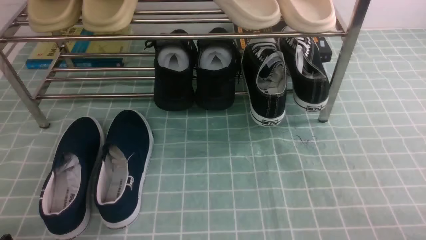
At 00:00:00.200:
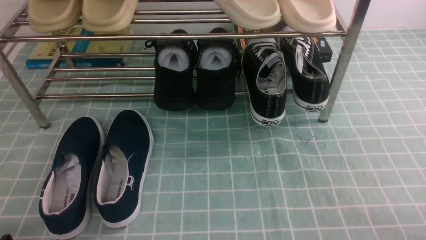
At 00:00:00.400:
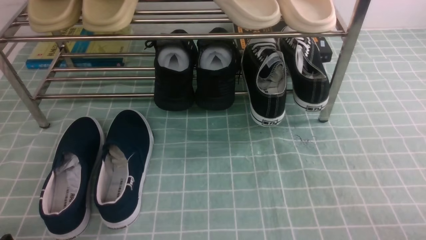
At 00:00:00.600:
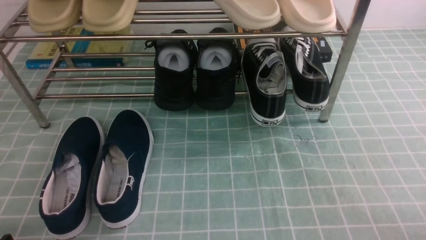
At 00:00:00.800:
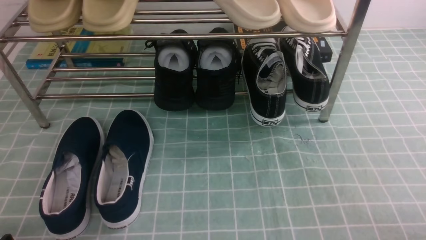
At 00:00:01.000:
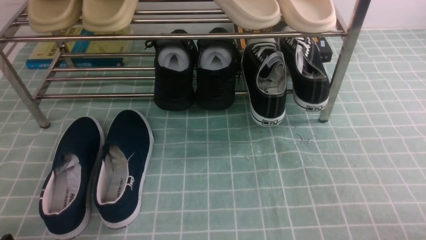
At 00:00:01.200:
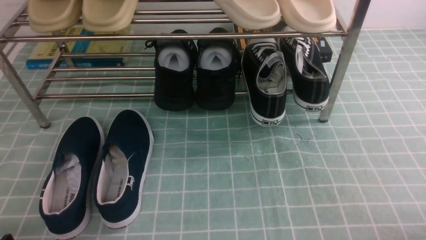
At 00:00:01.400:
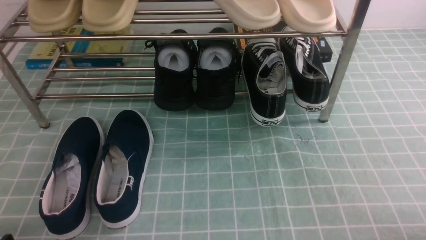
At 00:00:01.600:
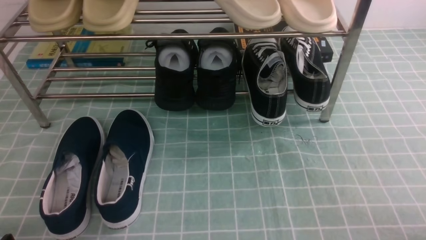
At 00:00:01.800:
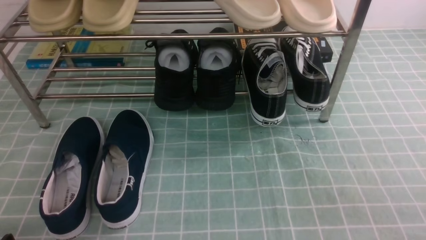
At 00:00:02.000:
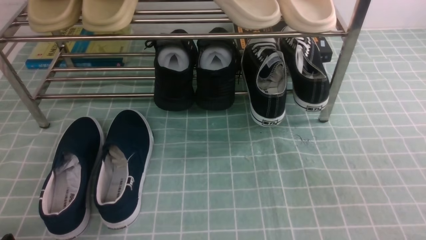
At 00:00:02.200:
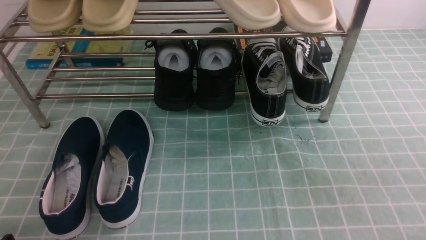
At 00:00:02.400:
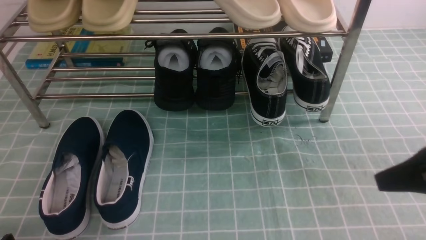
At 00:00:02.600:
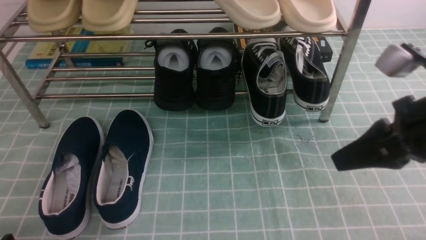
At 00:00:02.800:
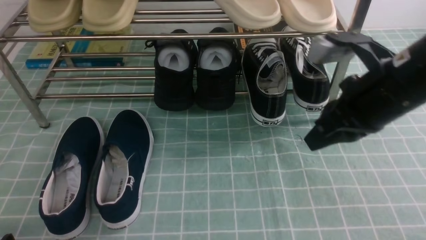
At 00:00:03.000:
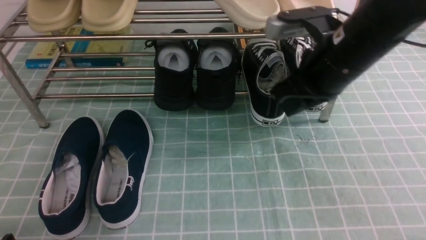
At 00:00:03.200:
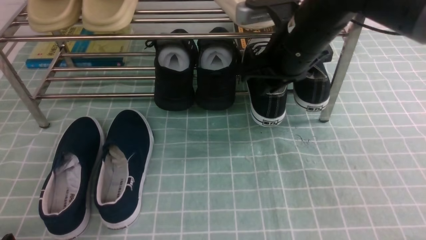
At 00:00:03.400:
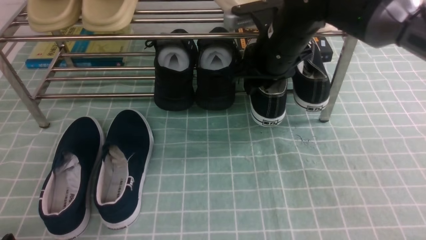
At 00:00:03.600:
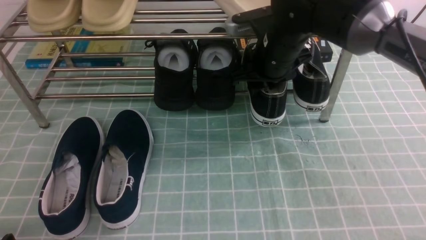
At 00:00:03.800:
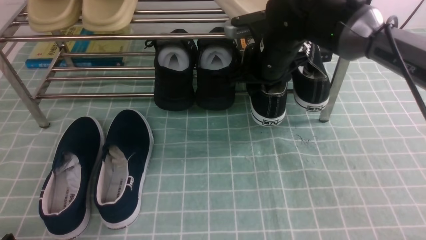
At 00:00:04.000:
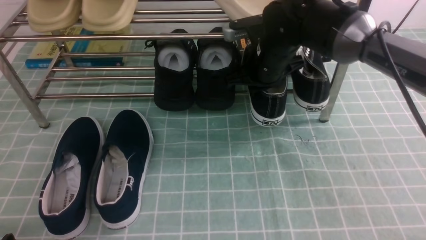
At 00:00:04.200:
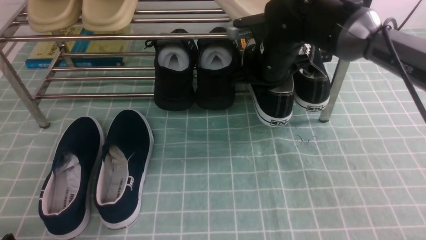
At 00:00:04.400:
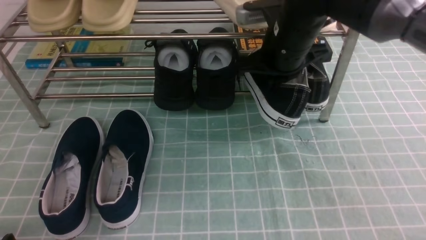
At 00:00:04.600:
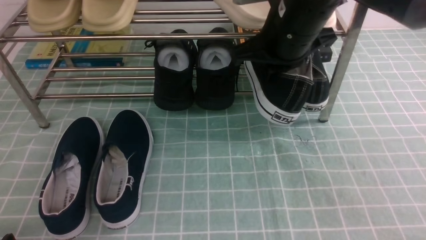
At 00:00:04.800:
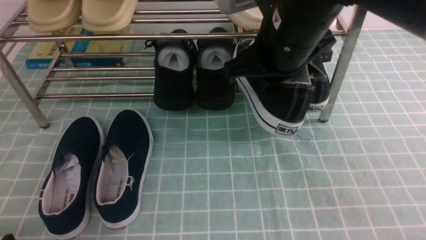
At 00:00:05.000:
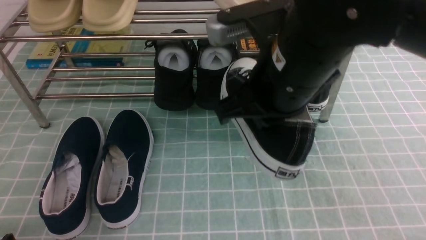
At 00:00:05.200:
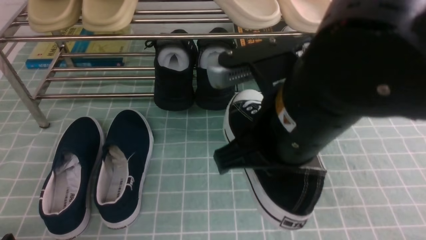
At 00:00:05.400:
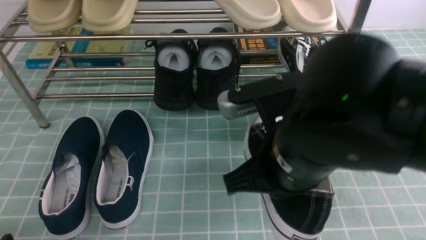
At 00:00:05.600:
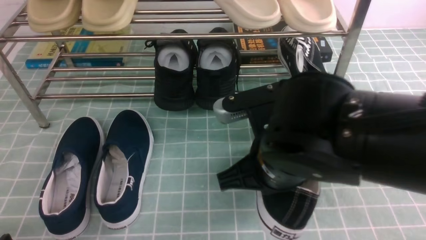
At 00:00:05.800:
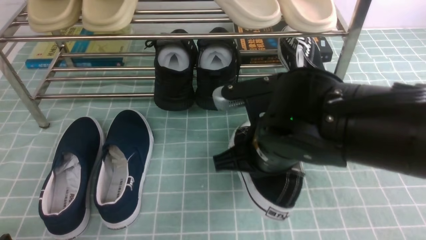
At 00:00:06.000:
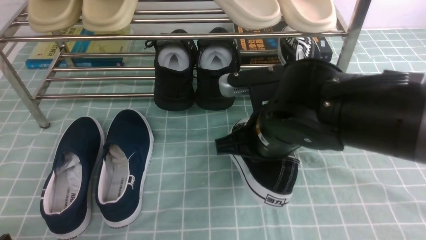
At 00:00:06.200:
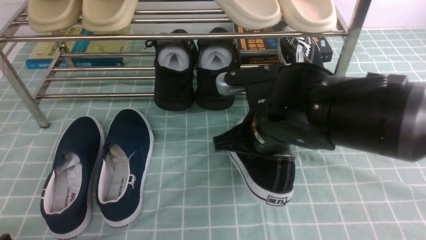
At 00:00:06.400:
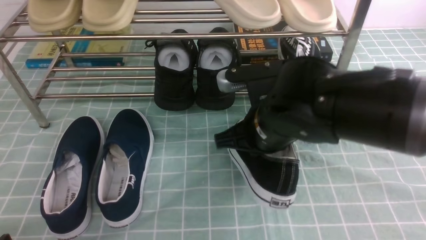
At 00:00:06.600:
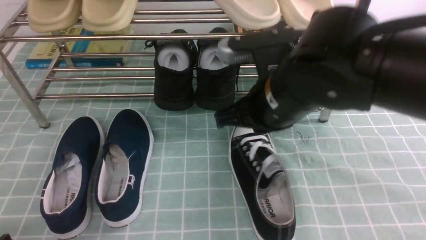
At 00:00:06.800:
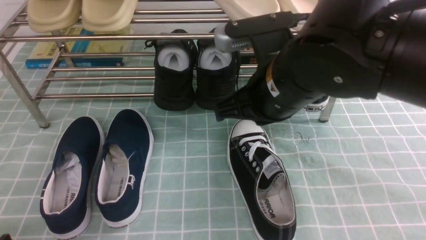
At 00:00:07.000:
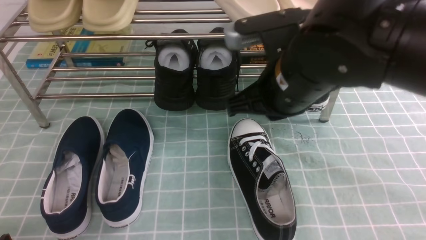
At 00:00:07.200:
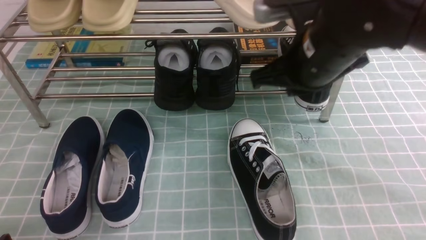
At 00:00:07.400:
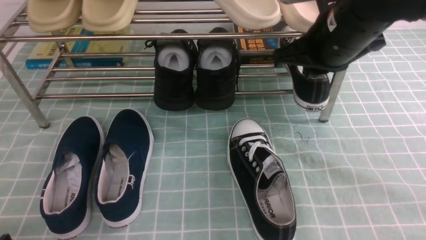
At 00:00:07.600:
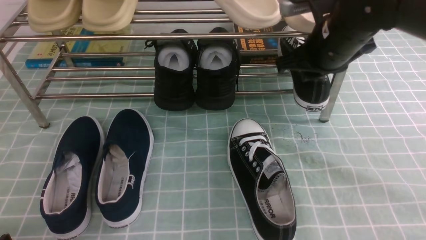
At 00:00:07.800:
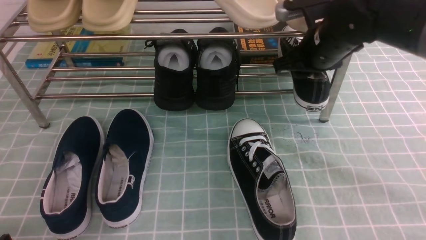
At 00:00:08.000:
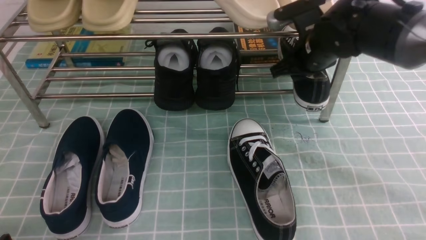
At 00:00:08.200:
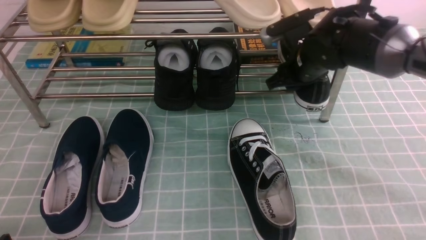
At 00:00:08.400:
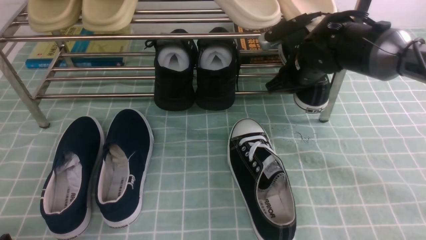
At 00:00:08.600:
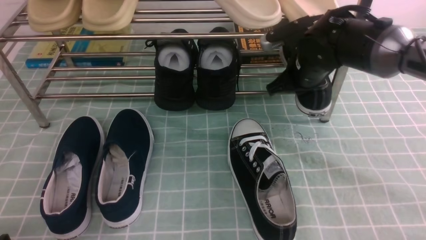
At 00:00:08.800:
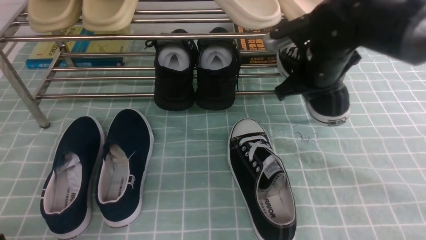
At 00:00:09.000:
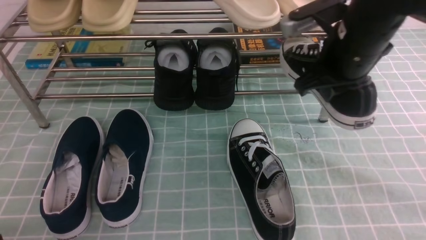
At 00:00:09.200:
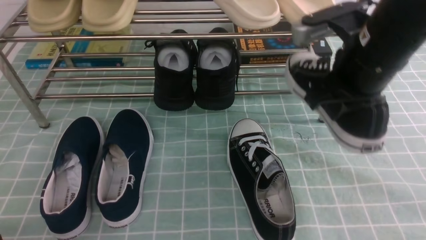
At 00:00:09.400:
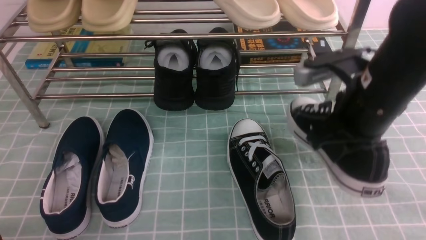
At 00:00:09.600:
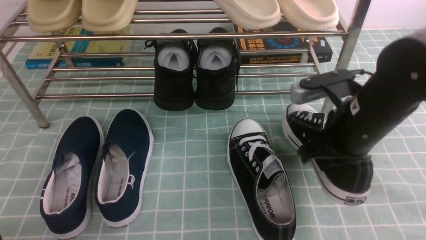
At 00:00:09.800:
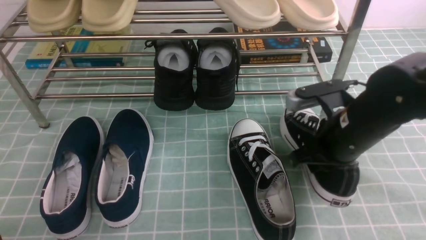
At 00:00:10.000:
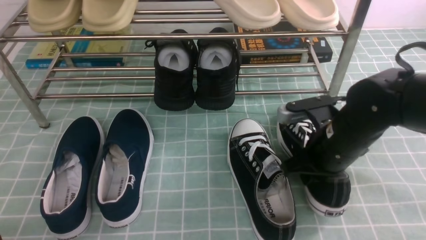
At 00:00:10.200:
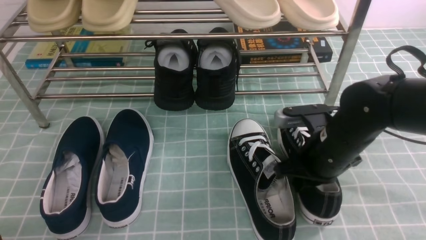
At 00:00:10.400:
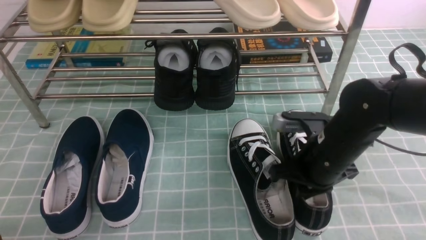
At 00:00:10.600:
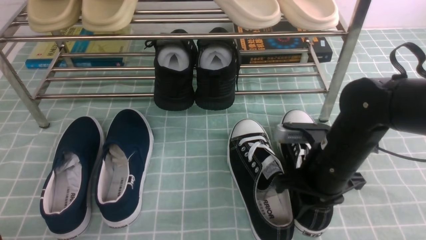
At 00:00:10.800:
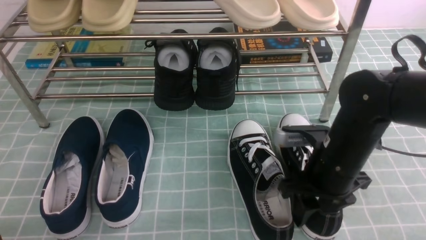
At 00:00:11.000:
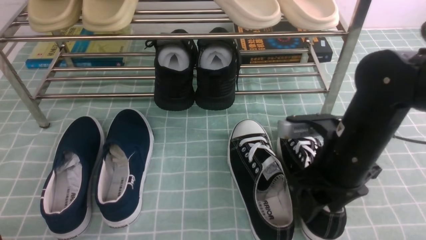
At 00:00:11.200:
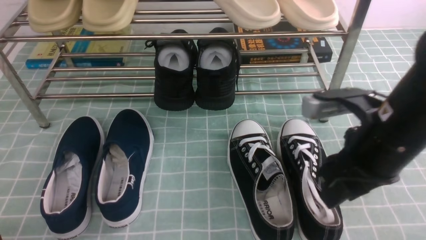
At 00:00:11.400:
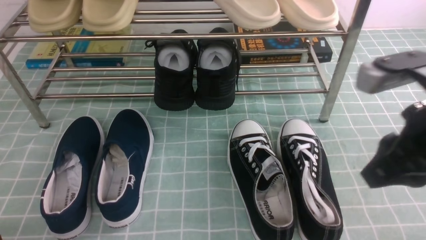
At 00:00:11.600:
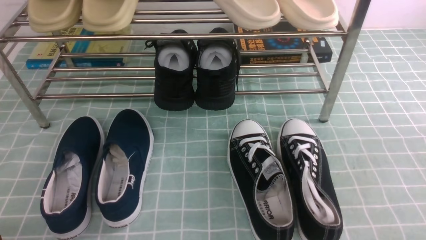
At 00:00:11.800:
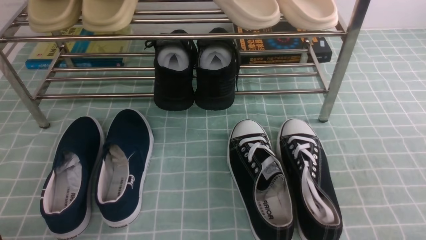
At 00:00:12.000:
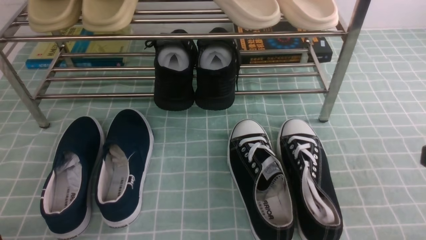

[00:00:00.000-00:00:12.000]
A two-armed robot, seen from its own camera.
Step, 00:00:00.000 to 00:00:03.800: use the right arm to clamp a shoe on the right side of the shoe rack.
Step, 00:00:04.000 to 00:00:06.600: use the right arm to take out the clamped shoe from the shoe rack and put it down.
Step, 00:00:06.800 to 00:00:08.600: use the right arm to clamp a shoe on the right side of the shoe rack.
Step, 00:00:08.800 to 00:00:11.200: use the right arm to take out the clamped shoe from the shoe rack and put it down.
00:00:01.600 to 00:00:03.000: The right gripper heads forward, to the left and upward, covering approximately 35 cm.
00:00:03.000 to 00:00:04.400: The right gripper travels forward by about 5 cm, and opens, then closes once more.
00:00:04.400 to 00:00:06.000: The right gripper travels backward and downward by roughly 15 cm.
00:00:06.000 to 00:00:07.600: The right gripper shifts roughly 15 cm forward, to the right and upward, and opens its fingers.
00:00:07.600 to 00:00:09.000: The right gripper closes.
00:00:09.000 to 00:00:10.400: The right gripper is displaced downward by approximately 15 cm.
00:00:10.400 to 00:00:12.000: The right gripper heads backward, upward and to the right, covering approximately 25 cm, and closes its fingers.

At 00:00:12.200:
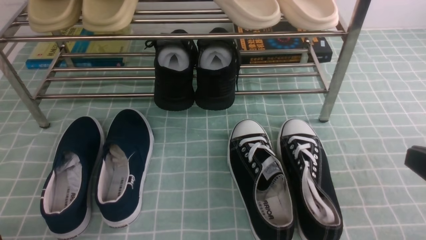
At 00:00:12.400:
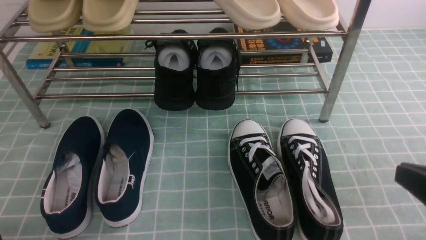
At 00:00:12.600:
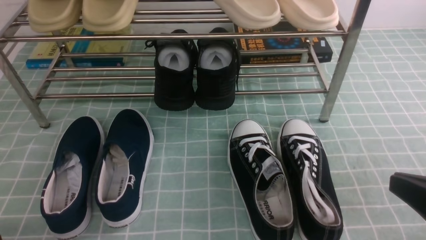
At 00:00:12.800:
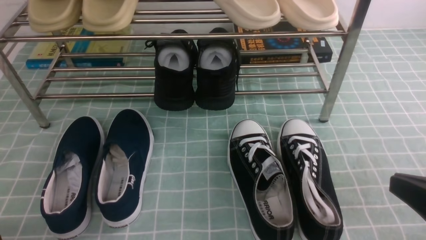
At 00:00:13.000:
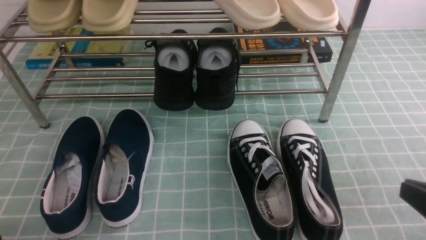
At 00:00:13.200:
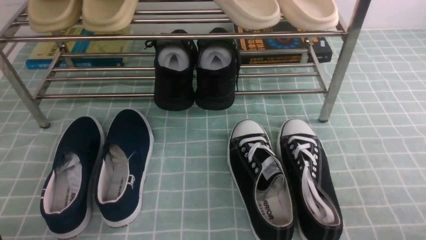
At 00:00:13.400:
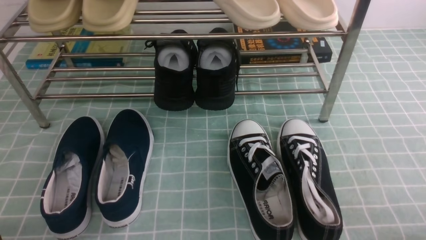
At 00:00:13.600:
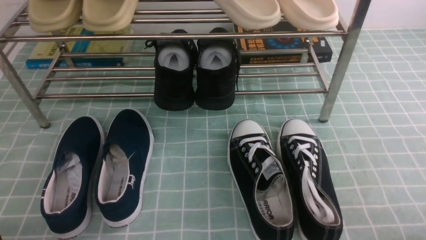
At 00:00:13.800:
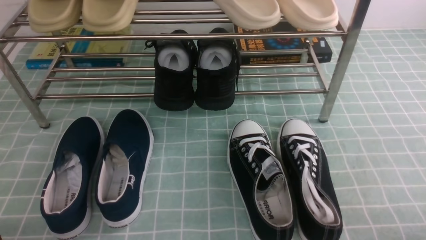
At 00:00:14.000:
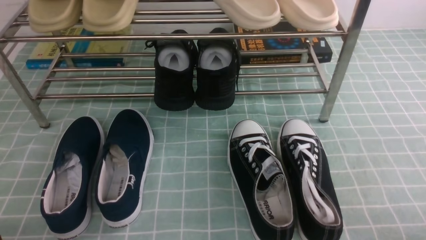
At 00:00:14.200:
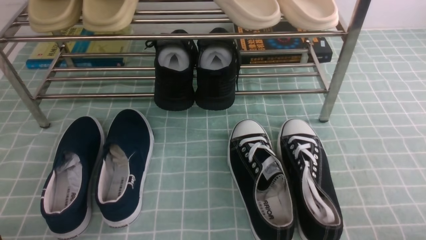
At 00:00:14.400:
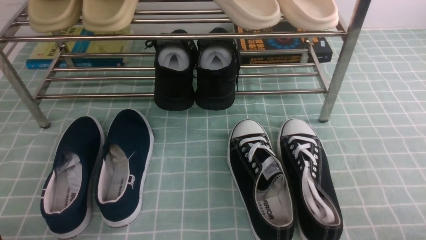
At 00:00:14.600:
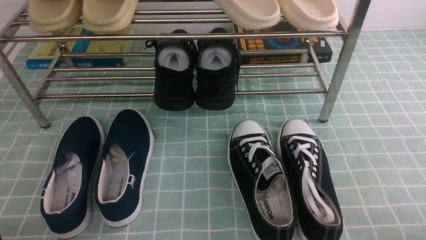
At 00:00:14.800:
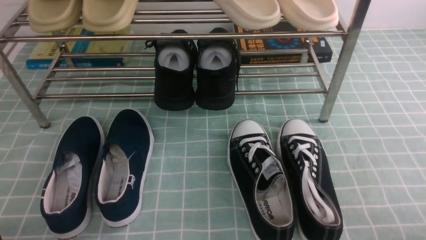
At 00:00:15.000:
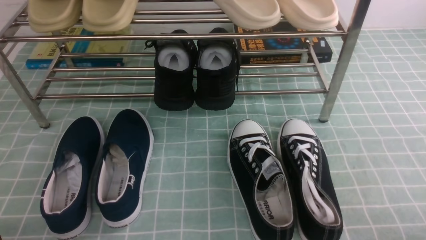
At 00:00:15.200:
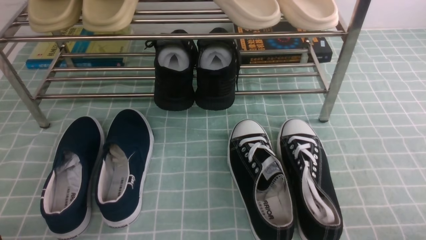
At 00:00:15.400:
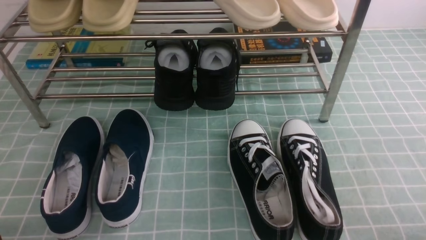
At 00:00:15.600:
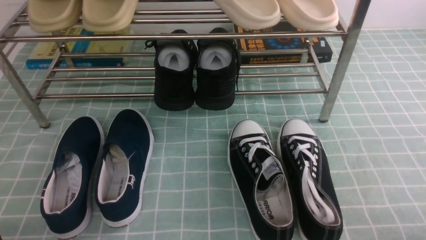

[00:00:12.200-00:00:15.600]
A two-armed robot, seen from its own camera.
00:00:12.200 to 00:00:13.800: The right gripper shifts approximately 15 cm downward and to the right.
00:00:13.800 to 00:00:15.600: Both grippers stay about where they are.
